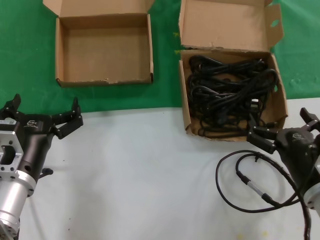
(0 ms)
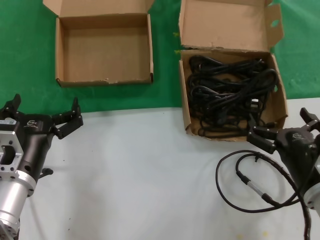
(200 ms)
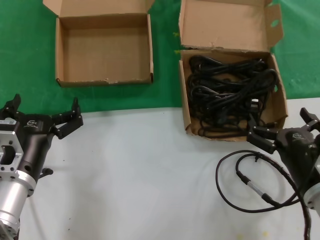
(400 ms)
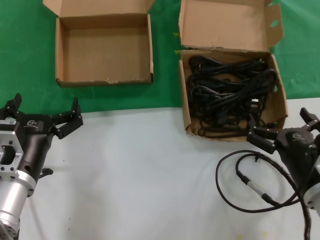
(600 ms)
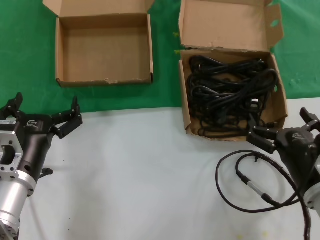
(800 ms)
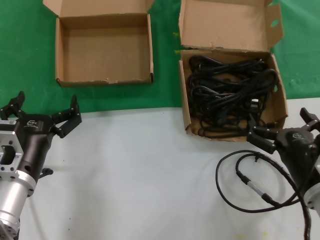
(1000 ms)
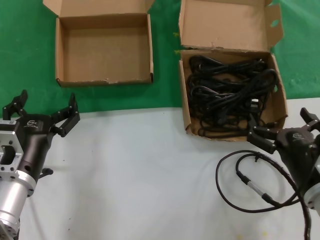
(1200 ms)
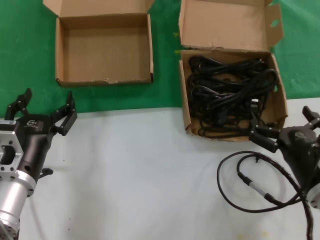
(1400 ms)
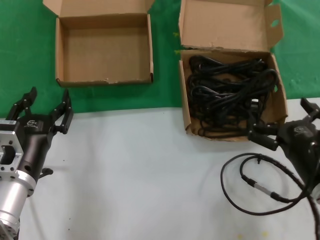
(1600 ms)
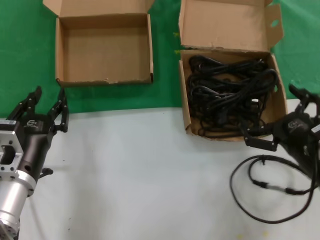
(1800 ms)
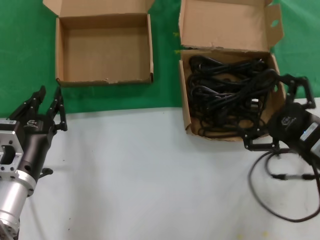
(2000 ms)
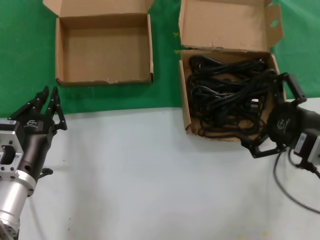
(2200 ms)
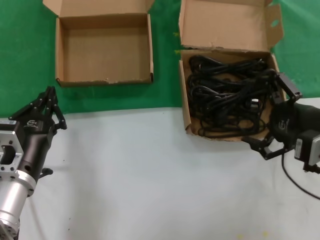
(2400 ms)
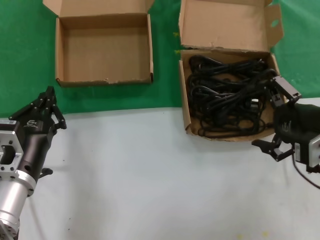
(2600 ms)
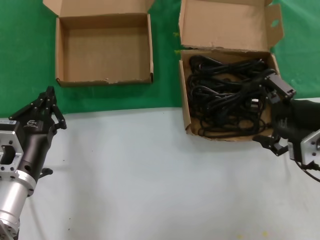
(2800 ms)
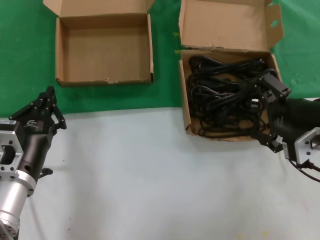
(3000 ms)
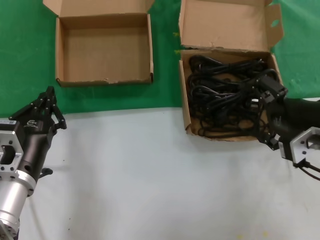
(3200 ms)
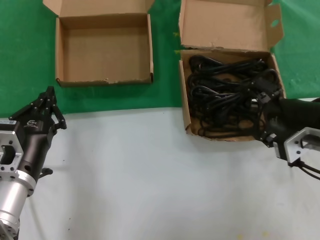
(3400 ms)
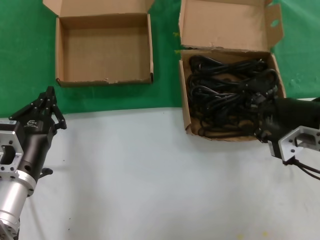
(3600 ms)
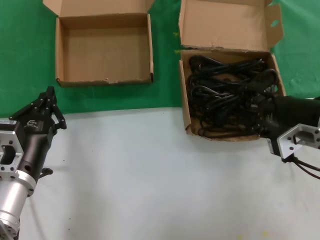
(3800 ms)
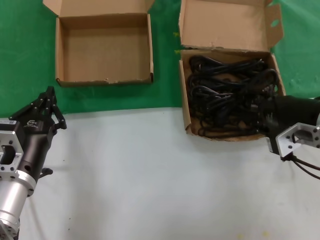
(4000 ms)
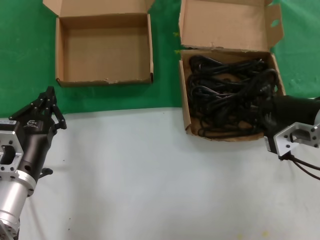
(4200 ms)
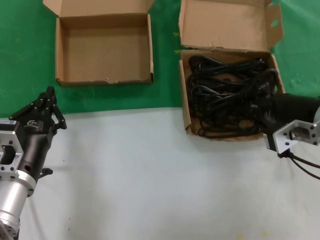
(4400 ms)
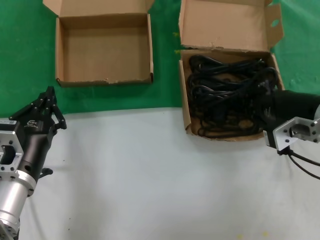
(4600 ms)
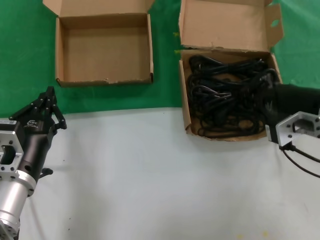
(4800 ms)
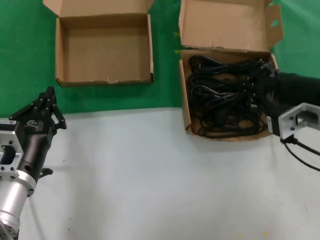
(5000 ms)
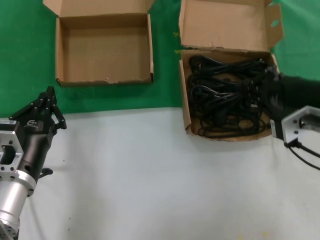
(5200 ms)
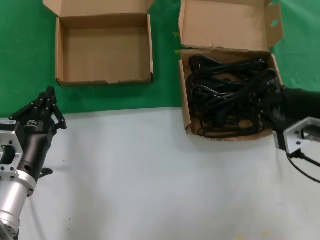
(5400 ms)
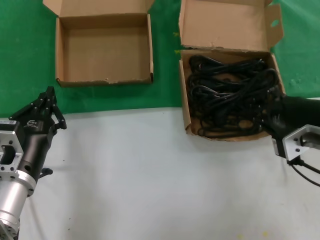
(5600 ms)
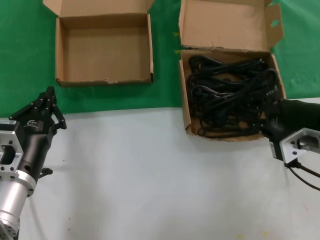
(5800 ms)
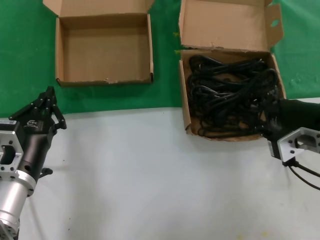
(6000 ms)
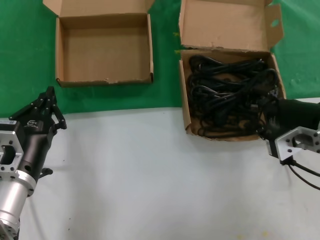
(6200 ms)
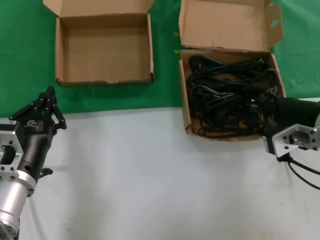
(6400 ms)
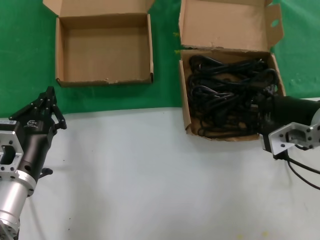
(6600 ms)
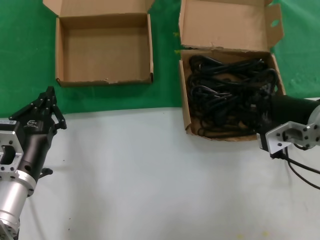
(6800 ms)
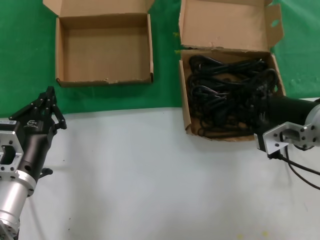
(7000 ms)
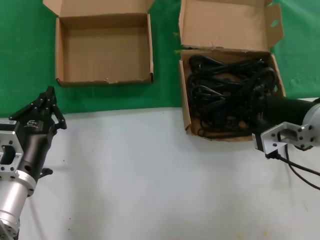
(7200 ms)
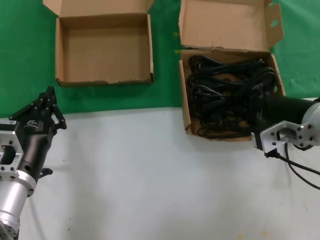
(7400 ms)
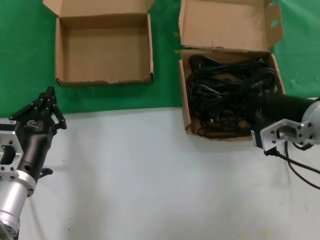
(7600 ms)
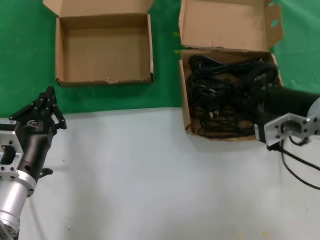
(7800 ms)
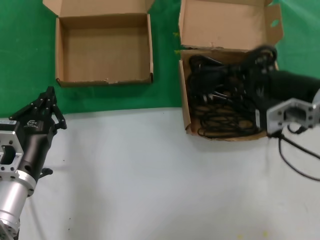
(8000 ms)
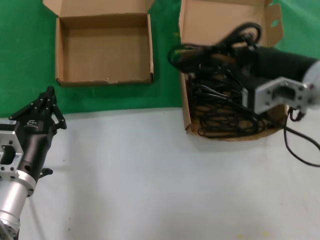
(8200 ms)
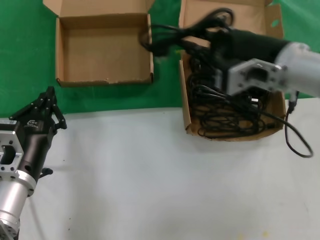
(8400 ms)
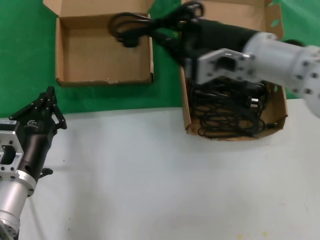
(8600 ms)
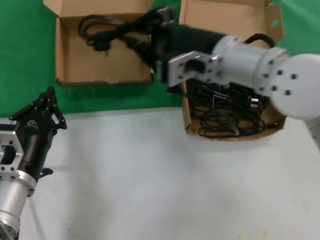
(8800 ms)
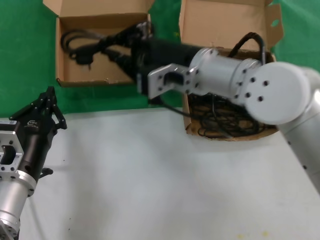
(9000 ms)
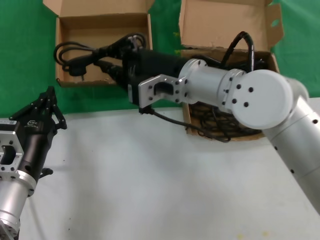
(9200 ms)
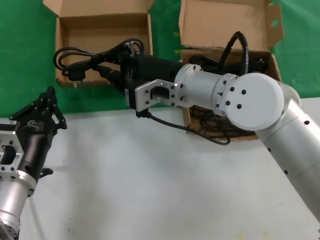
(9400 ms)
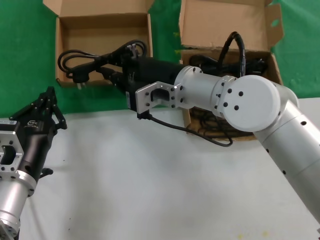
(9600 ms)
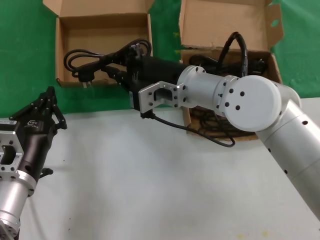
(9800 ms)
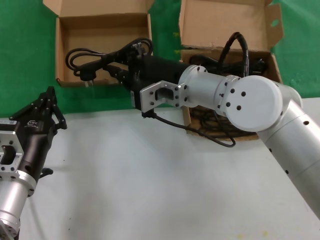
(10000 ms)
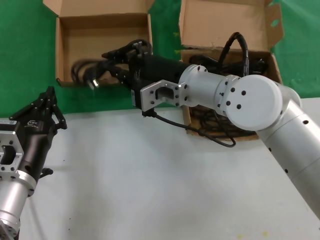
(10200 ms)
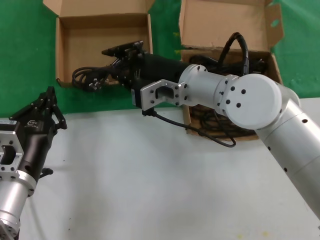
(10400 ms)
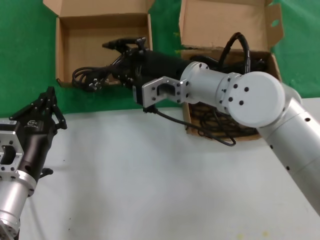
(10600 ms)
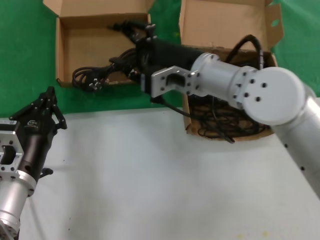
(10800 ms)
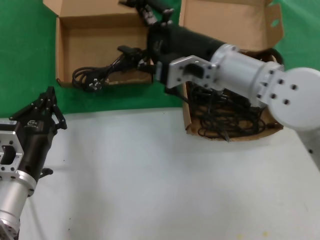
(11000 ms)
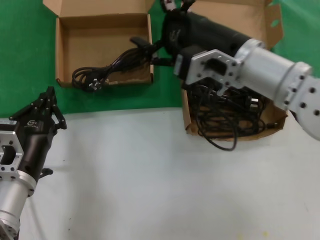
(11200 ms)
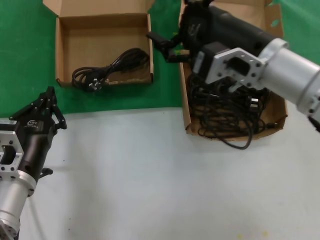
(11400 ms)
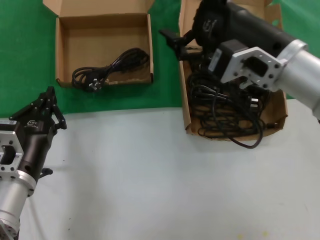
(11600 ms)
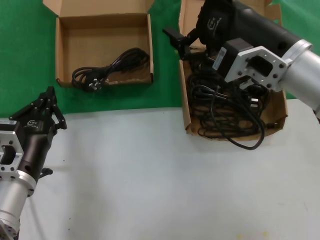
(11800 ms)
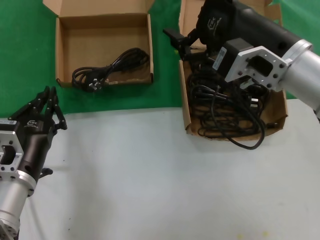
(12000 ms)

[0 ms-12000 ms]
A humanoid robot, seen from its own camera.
Task of the whole recording: take the parts from the box containing them and put them into an empty box.
Step, 0 ms to 4200 ms: Grasp the data cable.
Step, 4600 ms to 10200 ms: Place the data cable in the another box.
0 ms to 1600 ms: The hands move only a little.
1600 ms to 3000 ms: The right hand shifts approximately 15 cm upward.
3000 ms to 7600 ms: The hands move only a little.
7600 ms to 9000 ms: The right hand shifts roughly 15 cm to the left.
9000 ms to 10400 ms: The right hand ends up about 5 cm from where it was.
10400 ms to 12000 ms: The right hand moves to the right, backward and upward, about 15 cm.

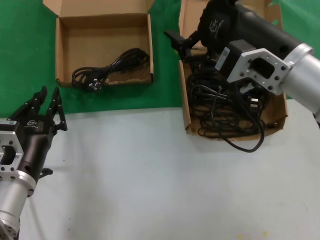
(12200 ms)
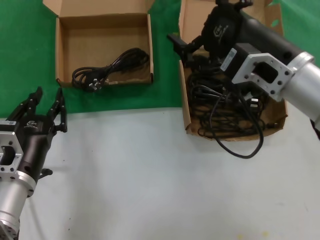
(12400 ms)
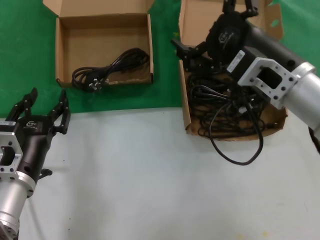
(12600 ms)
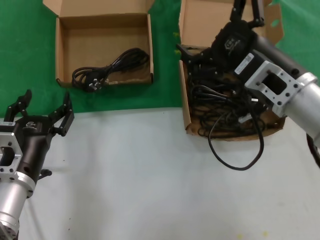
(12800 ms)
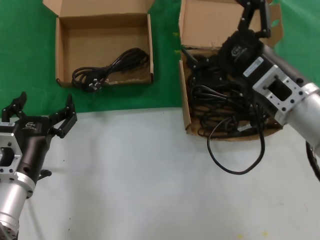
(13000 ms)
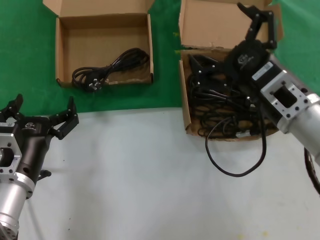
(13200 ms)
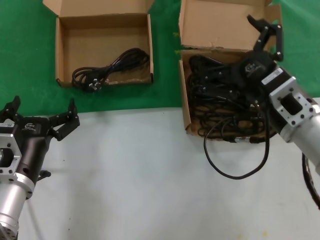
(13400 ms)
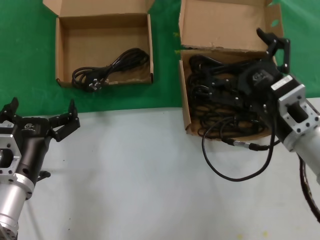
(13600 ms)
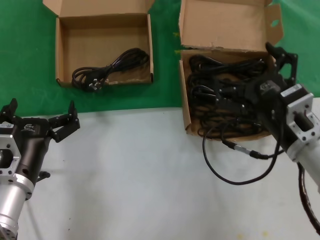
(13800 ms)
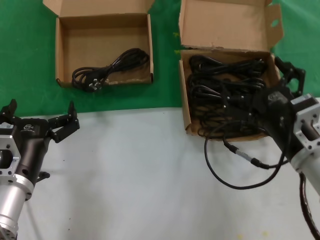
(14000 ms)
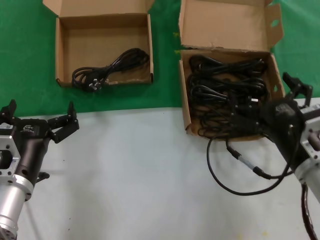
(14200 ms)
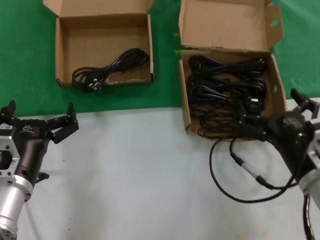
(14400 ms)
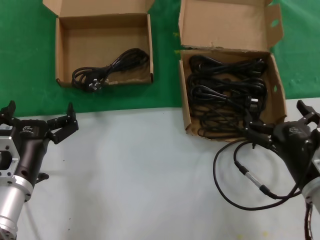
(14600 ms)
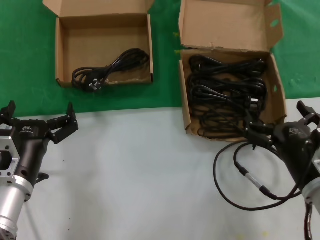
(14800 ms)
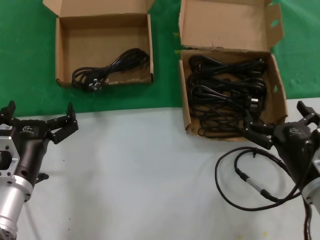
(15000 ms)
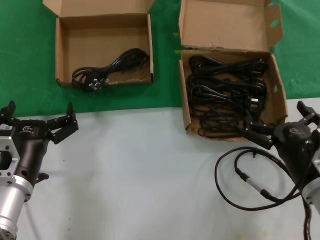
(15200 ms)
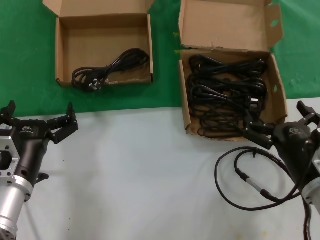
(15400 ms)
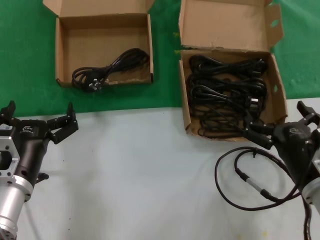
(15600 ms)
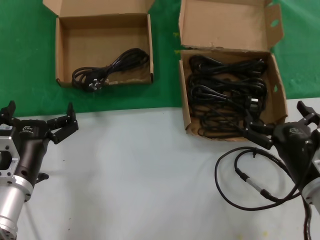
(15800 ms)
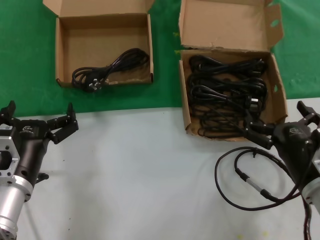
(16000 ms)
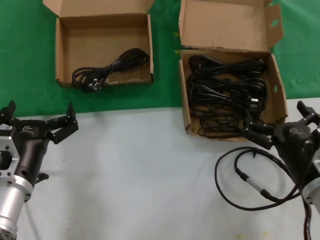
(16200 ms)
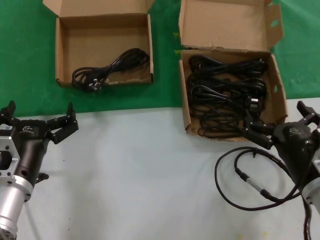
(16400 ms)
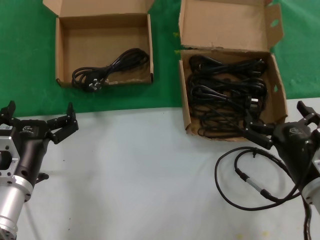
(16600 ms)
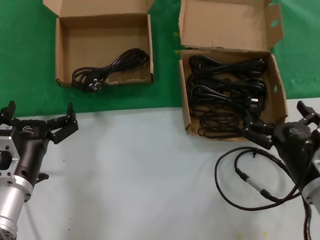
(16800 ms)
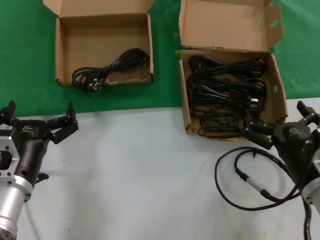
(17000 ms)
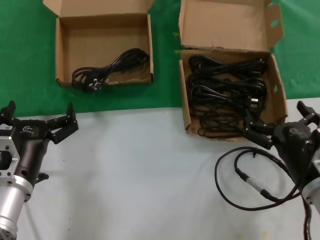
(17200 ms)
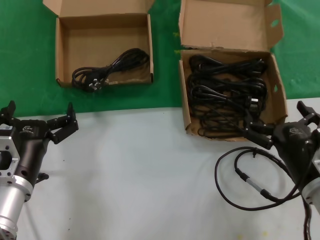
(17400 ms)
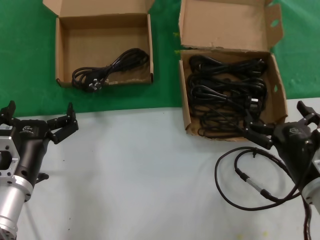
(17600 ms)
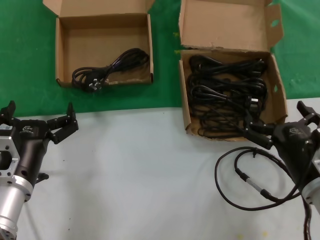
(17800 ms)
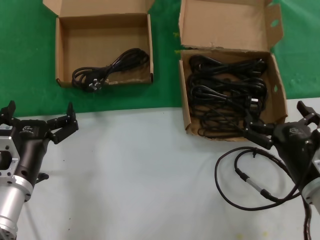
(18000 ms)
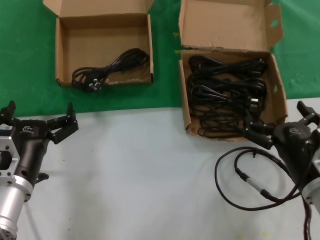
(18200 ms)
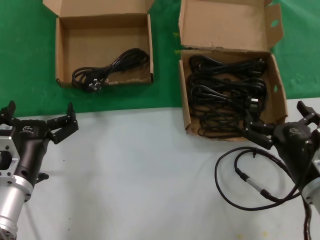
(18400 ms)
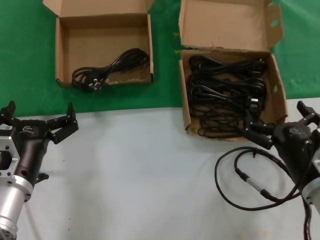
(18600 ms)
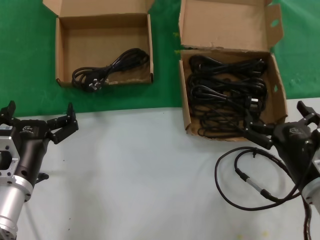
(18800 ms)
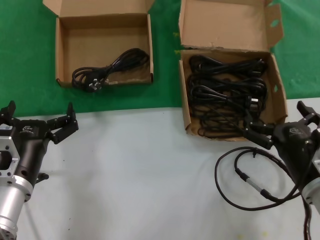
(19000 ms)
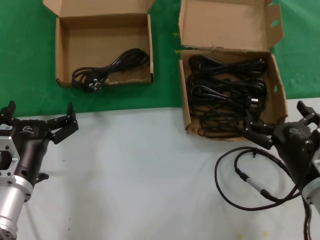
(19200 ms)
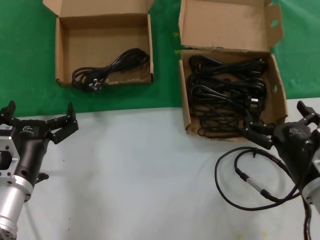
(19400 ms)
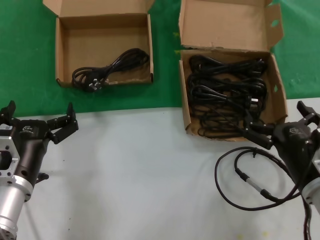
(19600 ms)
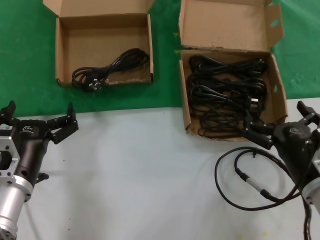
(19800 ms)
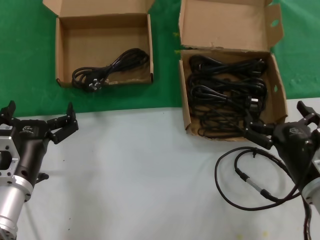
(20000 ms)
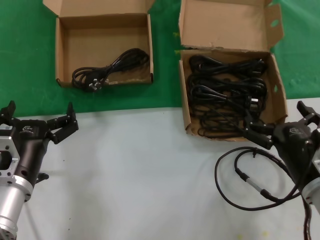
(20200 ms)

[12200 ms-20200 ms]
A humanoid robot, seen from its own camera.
Task of the whole recording: take the parts from the box containing them and put them into an empty box.
12200 ms to 13800 ms: The right hand moves downward, roughly 15 cm.
13800 ms to 15400 ms: The right hand travels downward by some 5 cm.
15400 ms to 20200 ms: Neither hand changes place.

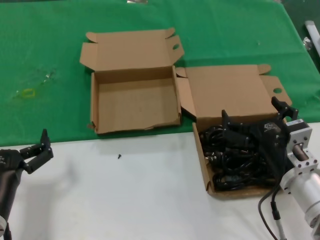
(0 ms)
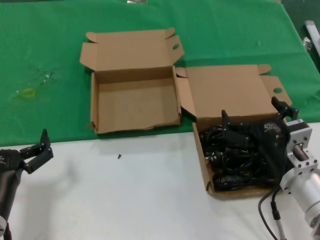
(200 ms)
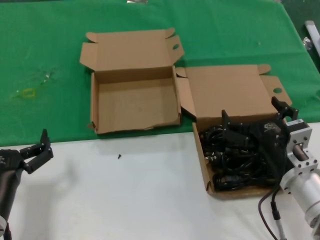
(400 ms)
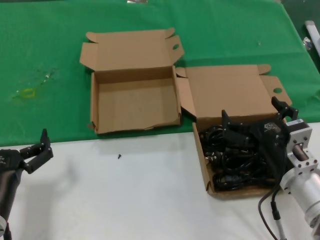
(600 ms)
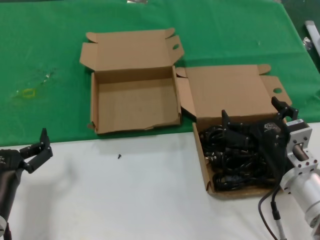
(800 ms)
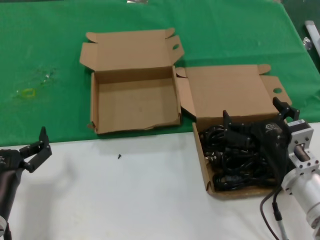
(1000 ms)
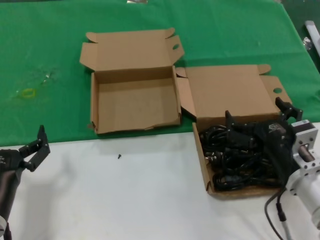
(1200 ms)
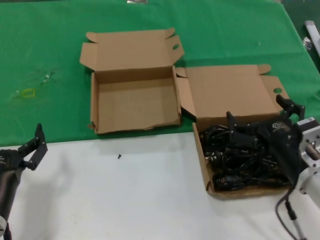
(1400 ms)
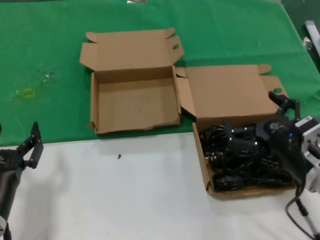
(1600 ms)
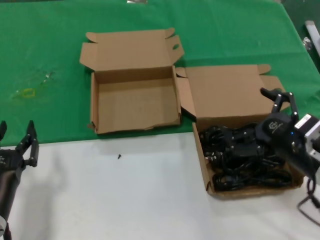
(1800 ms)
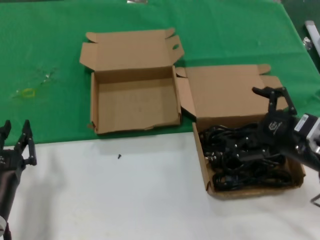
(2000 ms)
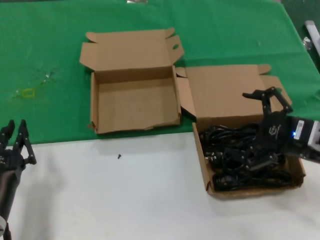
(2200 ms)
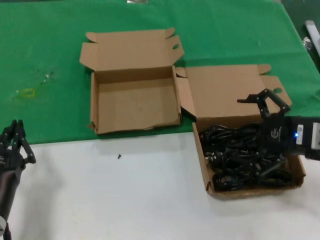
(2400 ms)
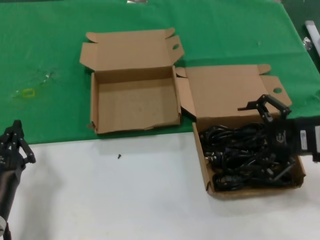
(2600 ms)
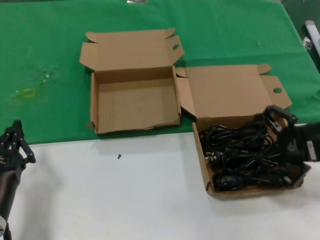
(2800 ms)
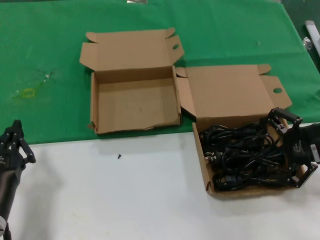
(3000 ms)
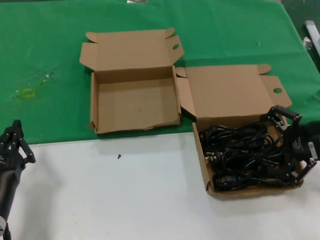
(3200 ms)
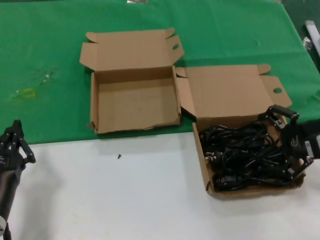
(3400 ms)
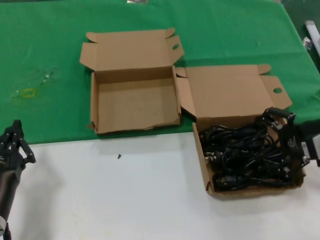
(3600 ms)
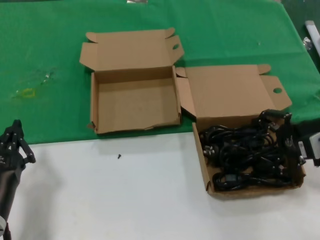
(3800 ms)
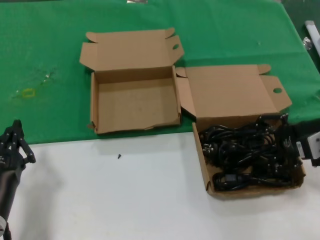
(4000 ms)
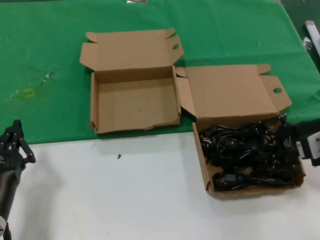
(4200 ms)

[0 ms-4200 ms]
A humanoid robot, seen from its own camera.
Task of the whole recording: take the parts from the box containing them and put them into an empty box.
0 ms to 1400 ms: There are only small adjustments of the hands.
1400 ms to 2800 ms: The right hand shifts approximately 15 cm upward, to the right and forward.
2800 ms to 4200 ms: The hands stay close to where they were, moving slightly.
